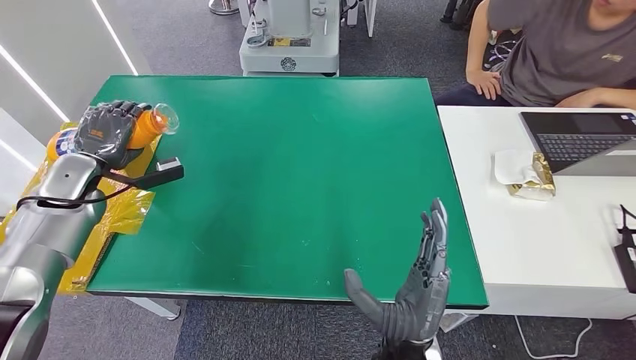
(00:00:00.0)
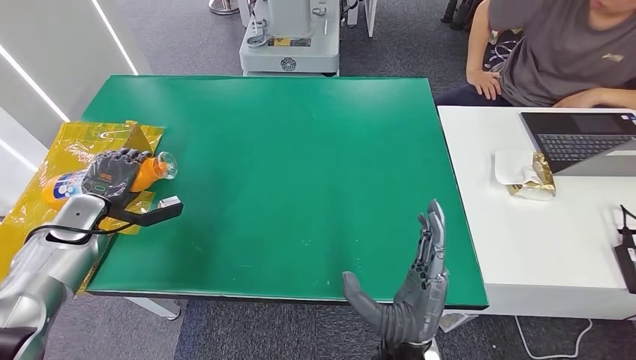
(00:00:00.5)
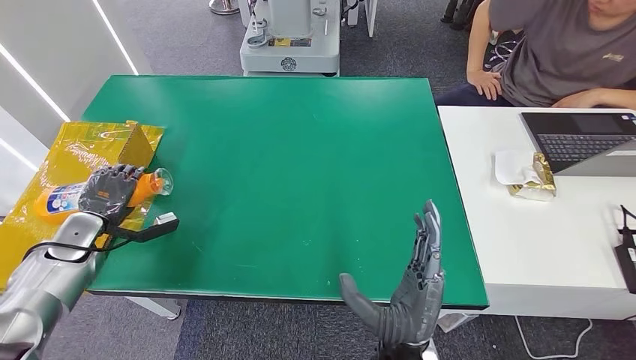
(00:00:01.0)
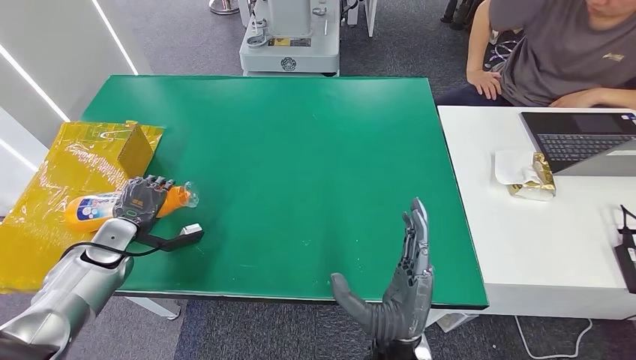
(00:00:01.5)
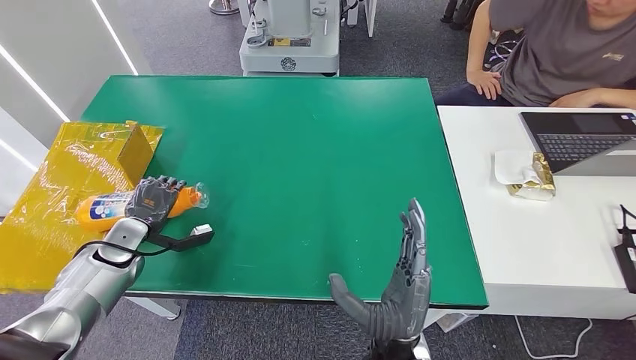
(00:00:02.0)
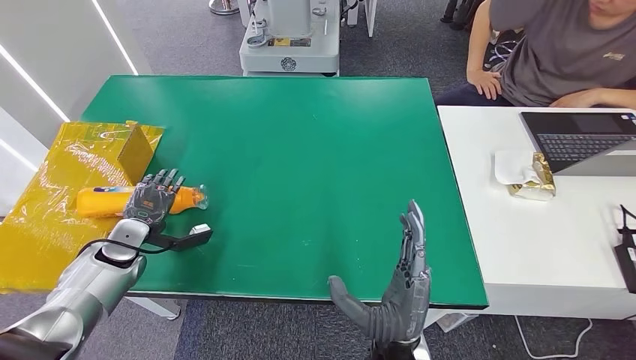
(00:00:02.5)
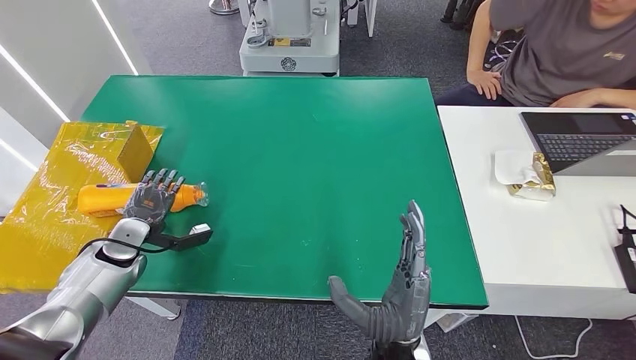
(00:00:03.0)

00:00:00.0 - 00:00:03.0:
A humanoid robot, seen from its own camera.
Step, 00:00:00.0 - 00:00:03.0: Turn the bottle to the front side.
00:00:00.0 - 00:00:01.5: The left hand goes about 15 cm downward and backward.
00:00:01.5 - 00:00:03.0: The hands make only small movements.
